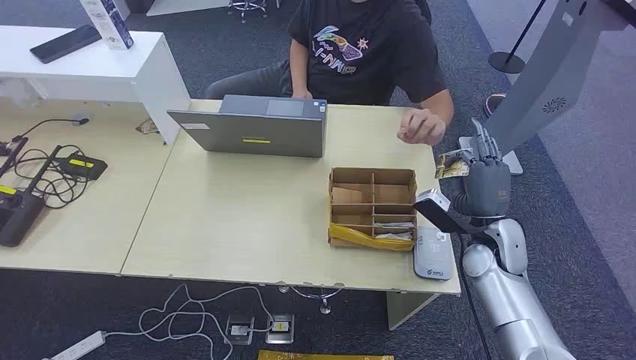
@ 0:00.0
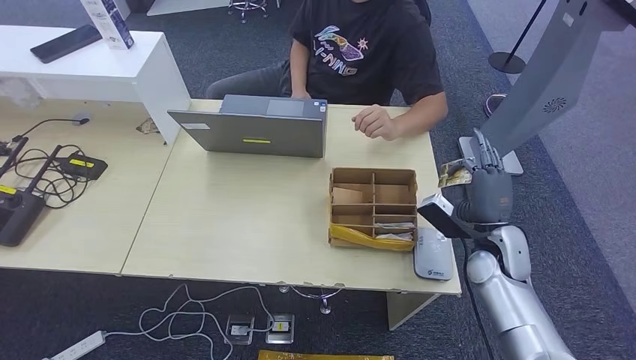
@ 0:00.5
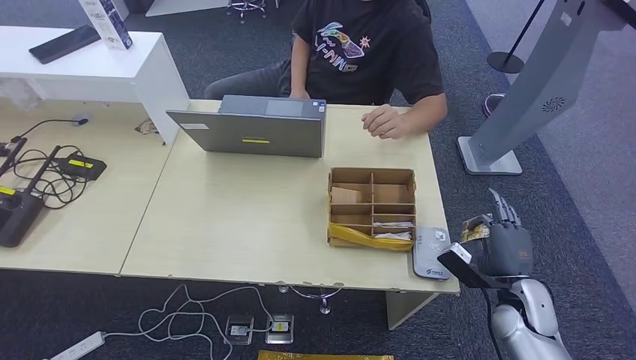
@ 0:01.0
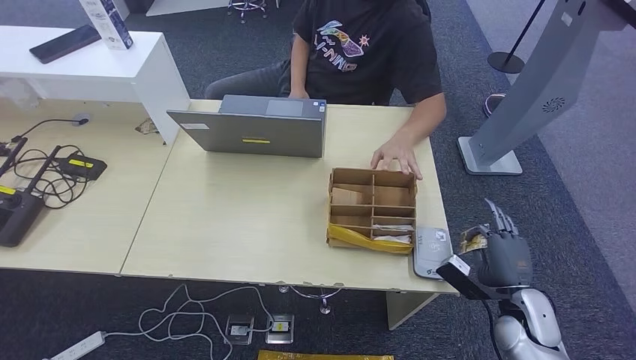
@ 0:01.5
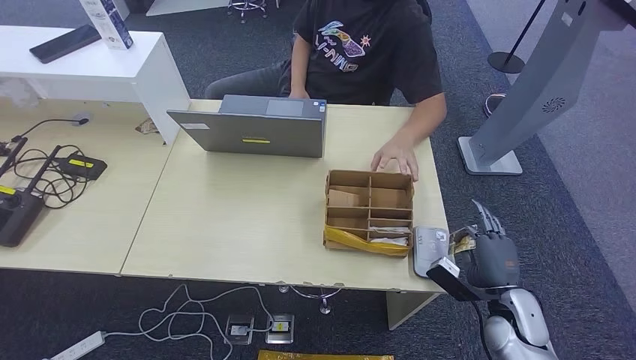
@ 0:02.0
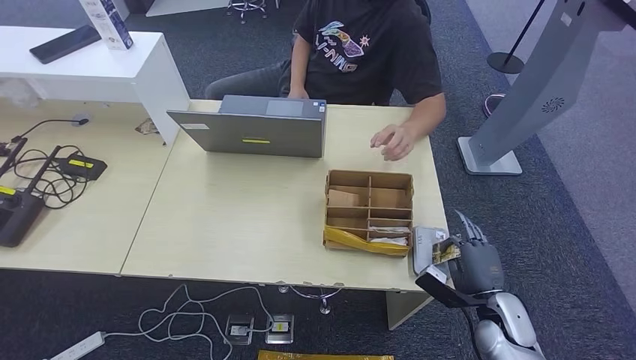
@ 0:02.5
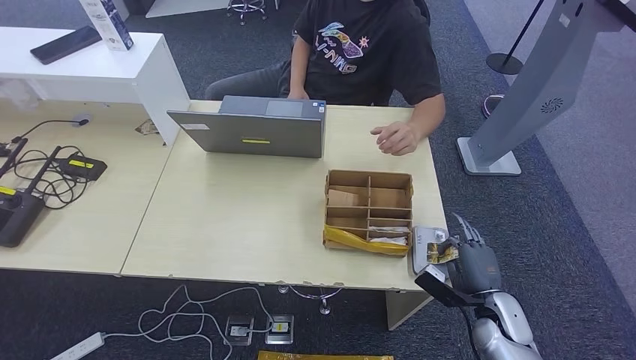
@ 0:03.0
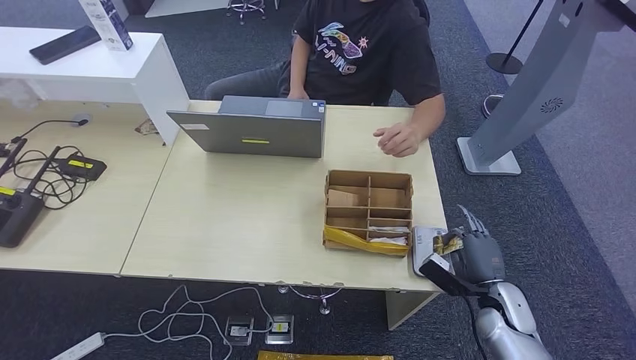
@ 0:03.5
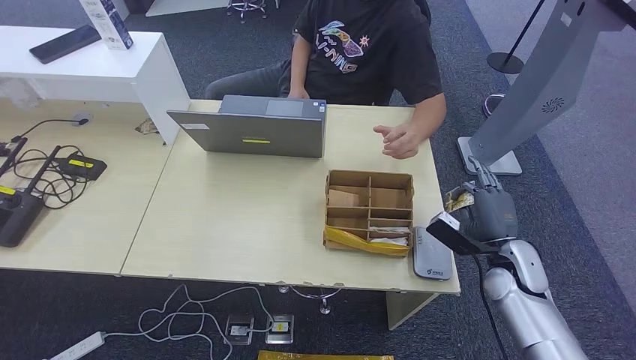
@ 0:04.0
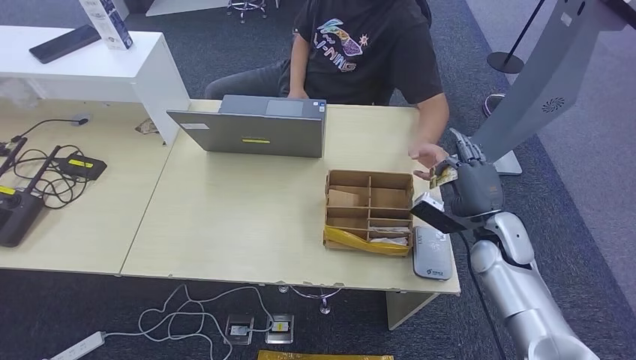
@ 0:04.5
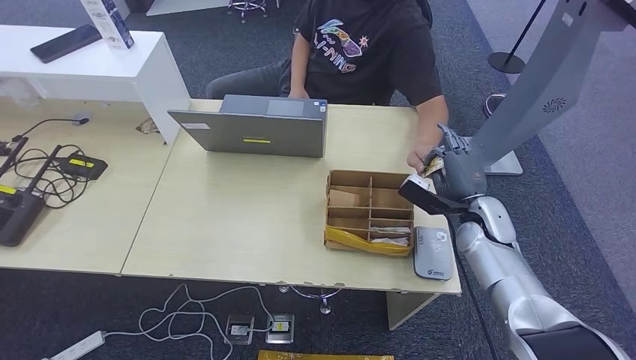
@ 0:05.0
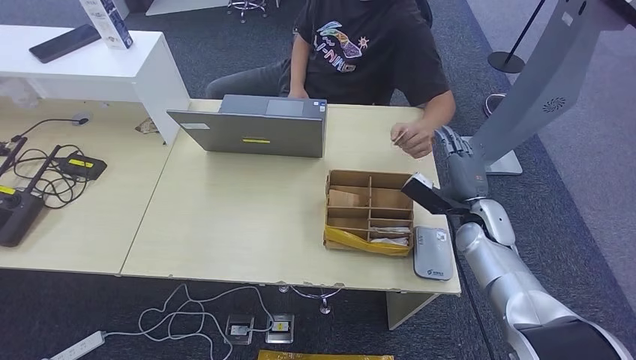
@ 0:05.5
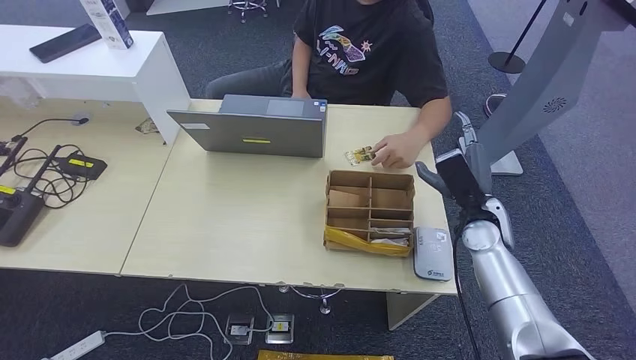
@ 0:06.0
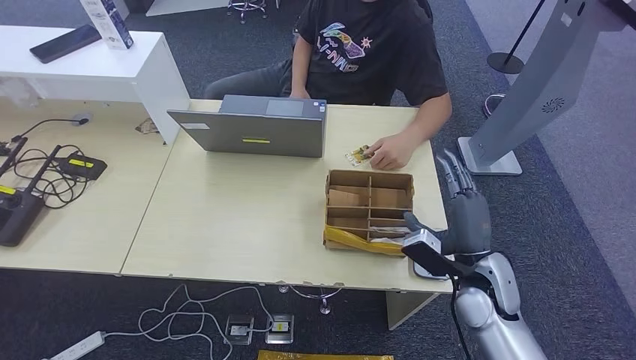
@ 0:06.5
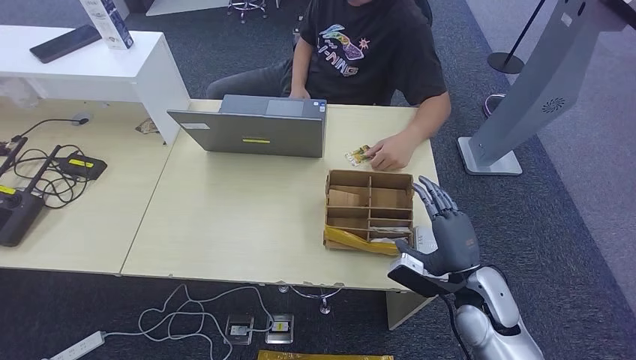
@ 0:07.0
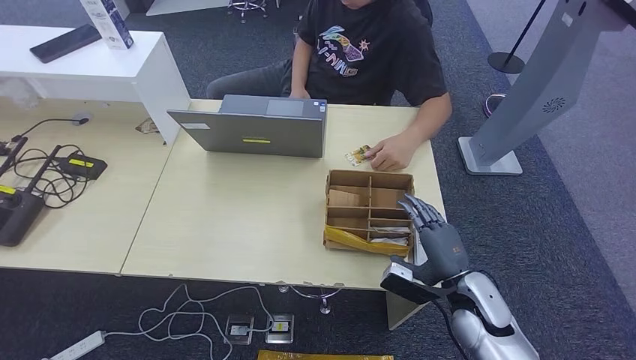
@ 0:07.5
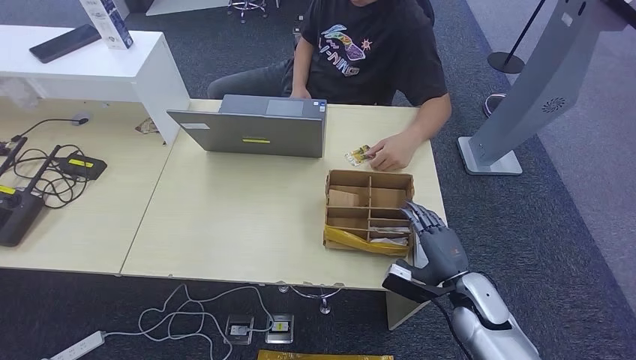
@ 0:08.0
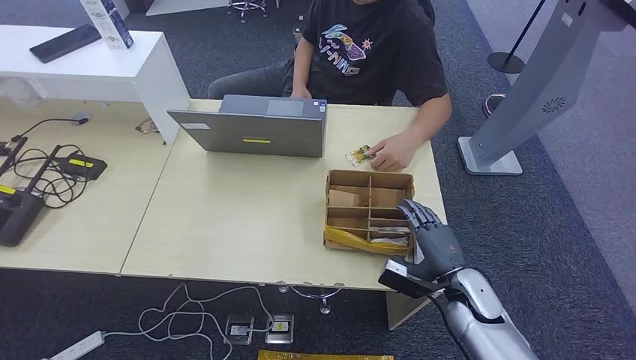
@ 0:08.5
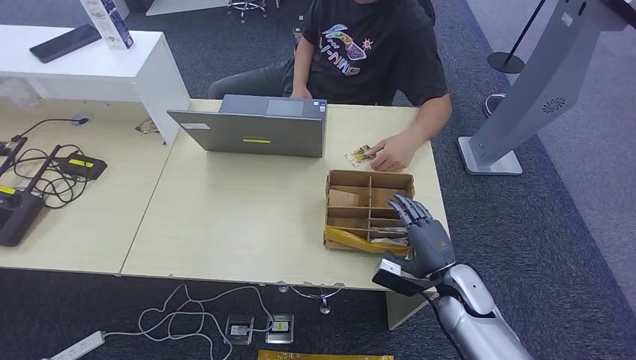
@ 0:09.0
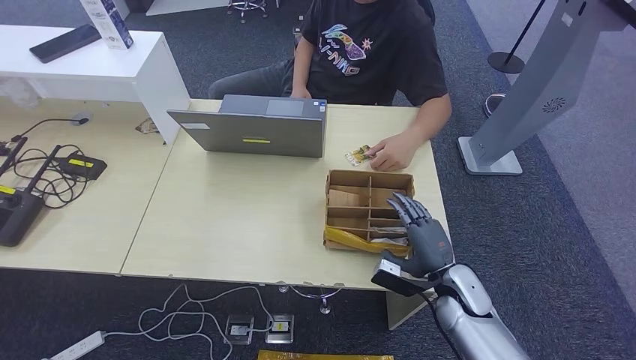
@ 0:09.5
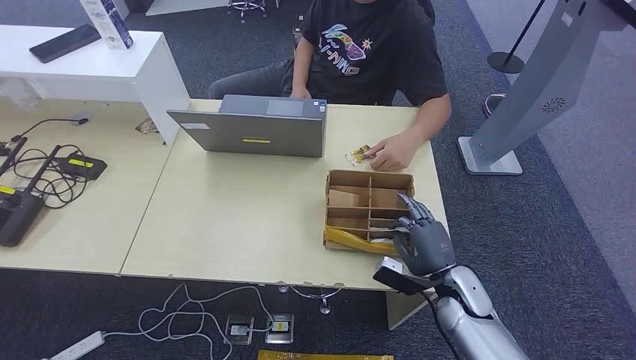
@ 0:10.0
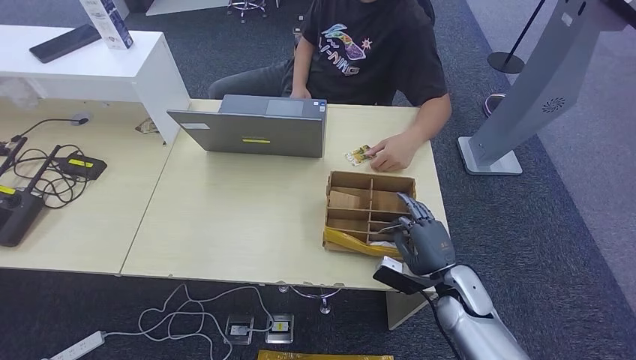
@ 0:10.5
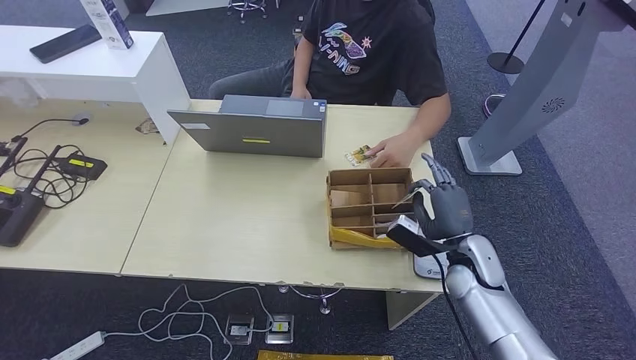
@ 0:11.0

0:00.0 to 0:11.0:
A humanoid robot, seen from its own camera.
Step, 0:00.0 to 0:01.5: Take the ID card from the person's hand.
Step, 0:02.0 to 0:04.0: Place the ID card on the card reader.
Step, 0:04.5 to 0:07.0: Hand the ID card to the person.
0:02.0 to 0:03.5: The hands move only a little.
0:03.5 to 0:05.5: The right hand is displaced forward and upward by roughly 15 cm.
0:05.5 to 0:07.5: The right hand shifts roughly 15 cm backward.
0:07.5 to 0:09.0: The hands stay close to where they were, moving slightly.
0:09.0 to 0:11.0: The right hand shifts by roughly 5 cm.

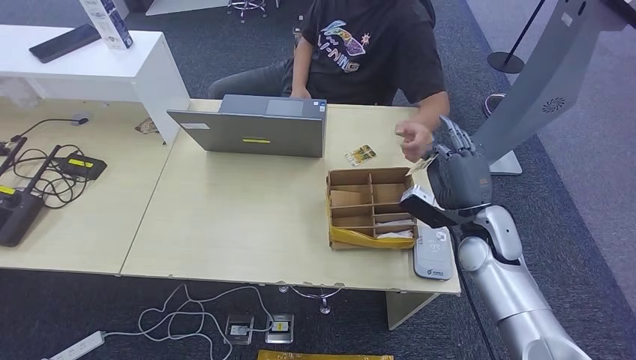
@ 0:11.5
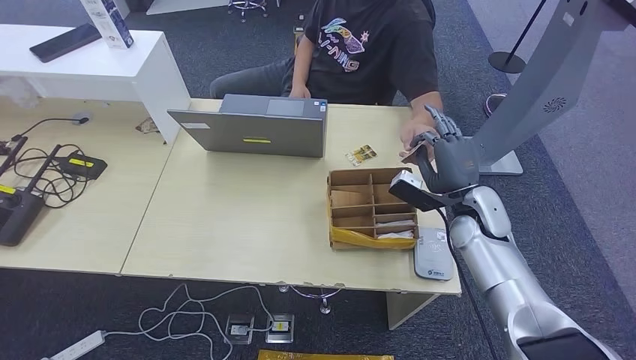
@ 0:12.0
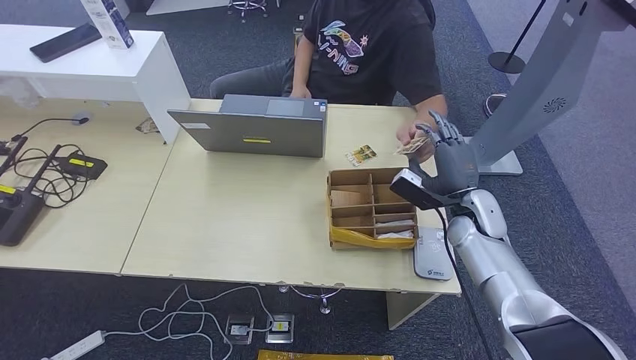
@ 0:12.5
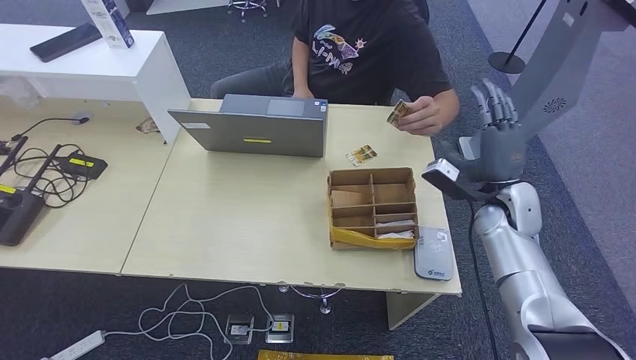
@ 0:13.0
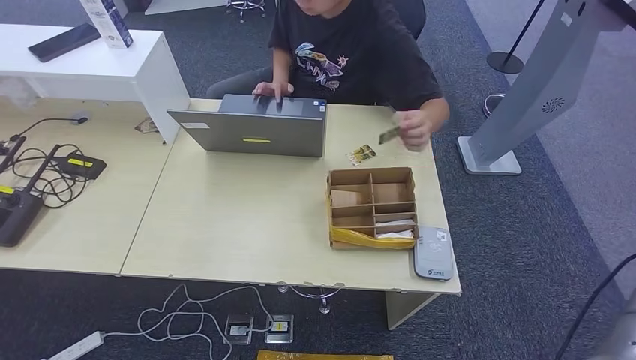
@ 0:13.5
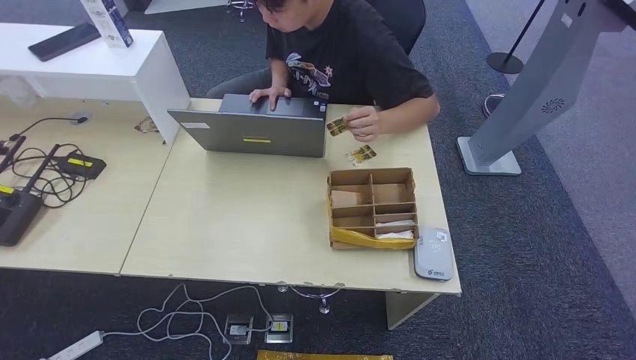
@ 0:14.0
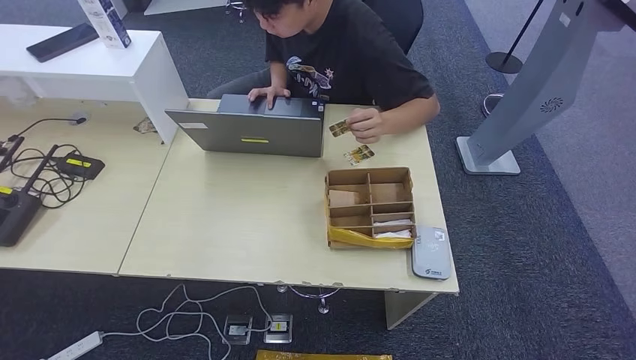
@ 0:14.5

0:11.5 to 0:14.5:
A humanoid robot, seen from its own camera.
Step, 0:11.5 to 0:14.5: Hand the room key to the person.
0:11.5 to 0:13.0: The right hand moves some 5 cm.
0:13.0 to 0:14.5: The right hand goes some 50 cm backward, downward and to the right.
